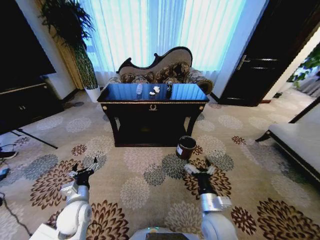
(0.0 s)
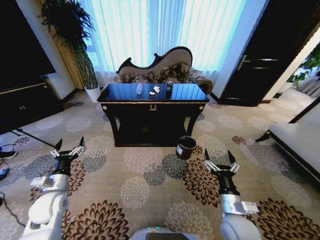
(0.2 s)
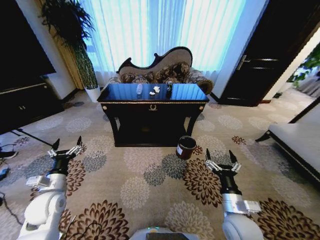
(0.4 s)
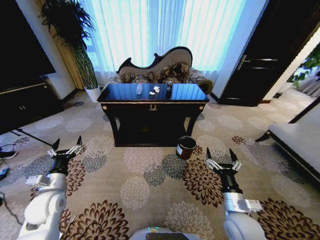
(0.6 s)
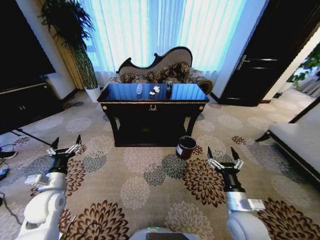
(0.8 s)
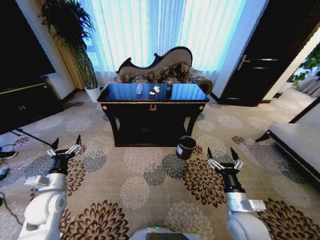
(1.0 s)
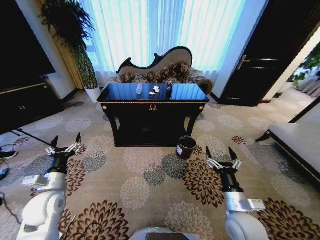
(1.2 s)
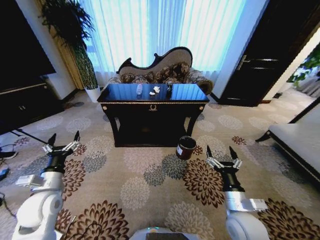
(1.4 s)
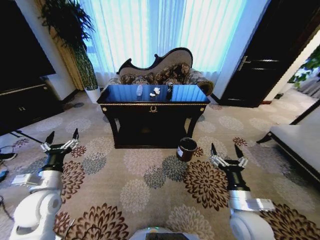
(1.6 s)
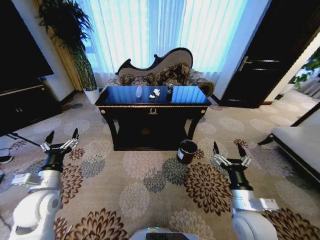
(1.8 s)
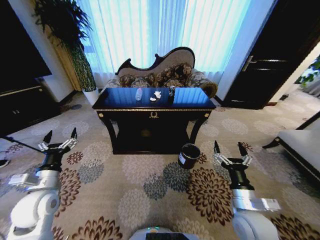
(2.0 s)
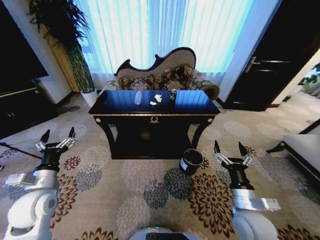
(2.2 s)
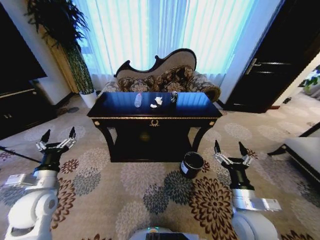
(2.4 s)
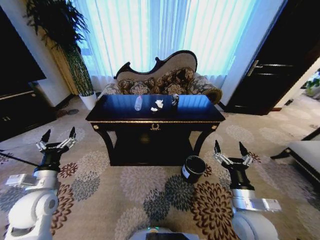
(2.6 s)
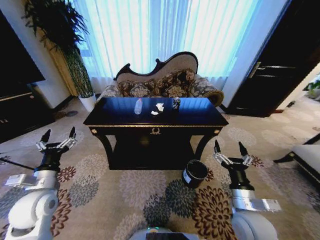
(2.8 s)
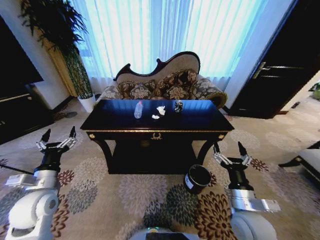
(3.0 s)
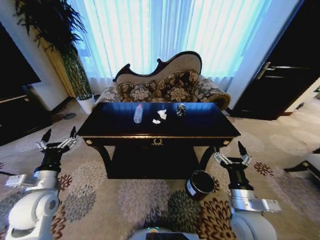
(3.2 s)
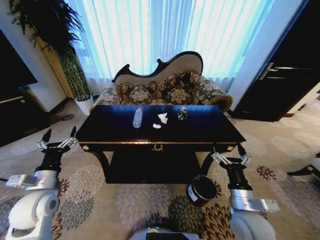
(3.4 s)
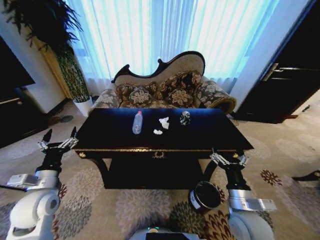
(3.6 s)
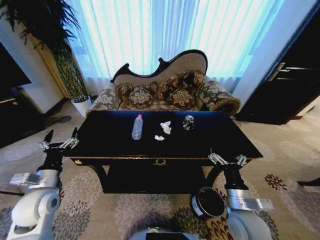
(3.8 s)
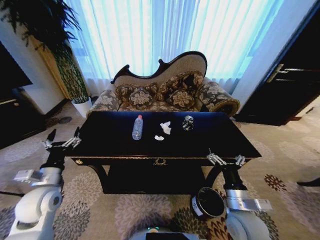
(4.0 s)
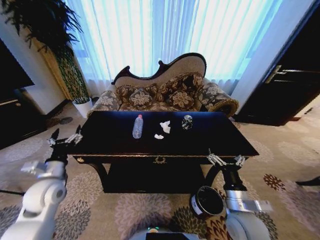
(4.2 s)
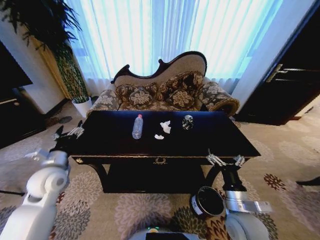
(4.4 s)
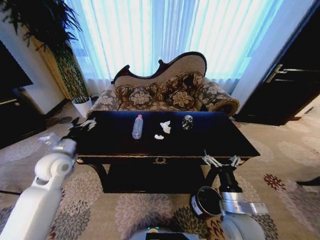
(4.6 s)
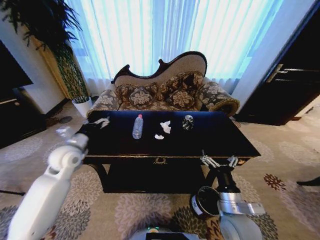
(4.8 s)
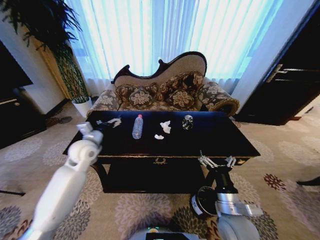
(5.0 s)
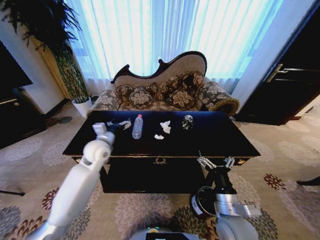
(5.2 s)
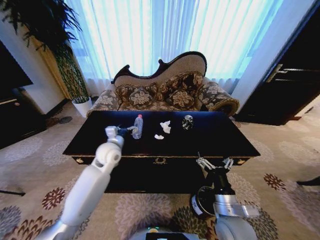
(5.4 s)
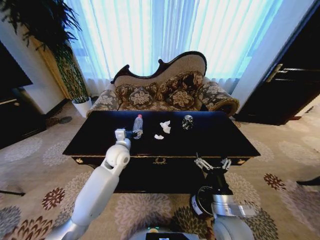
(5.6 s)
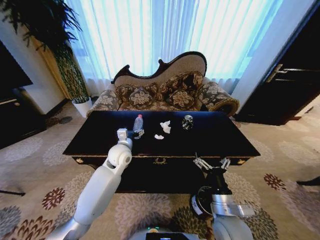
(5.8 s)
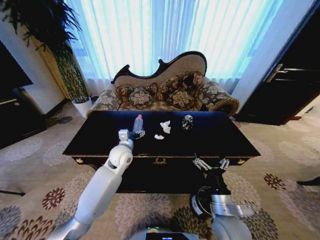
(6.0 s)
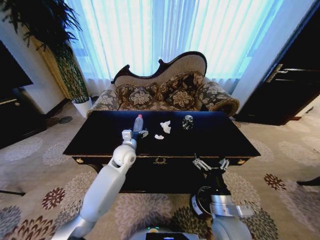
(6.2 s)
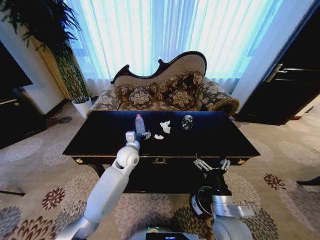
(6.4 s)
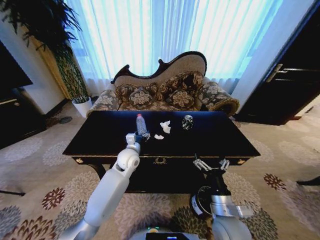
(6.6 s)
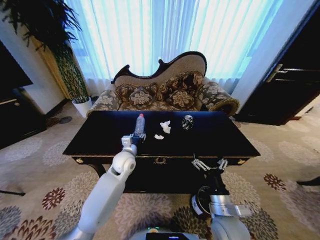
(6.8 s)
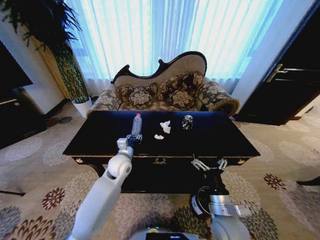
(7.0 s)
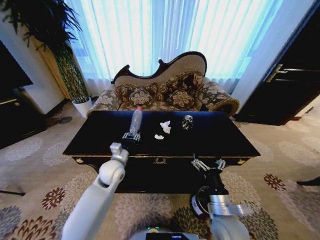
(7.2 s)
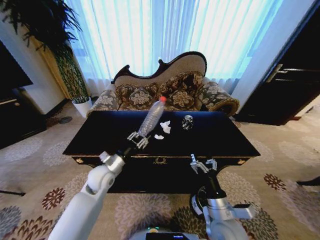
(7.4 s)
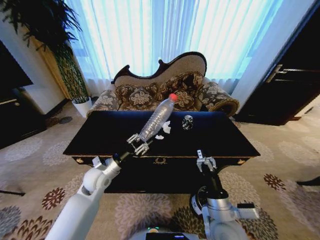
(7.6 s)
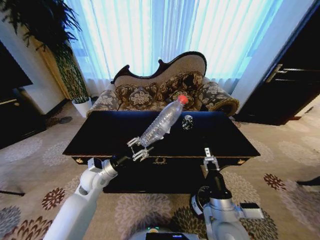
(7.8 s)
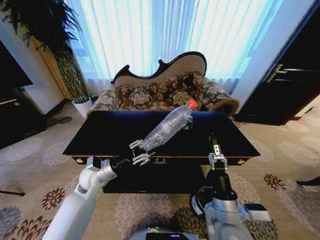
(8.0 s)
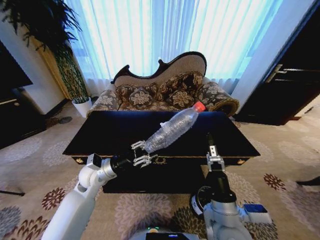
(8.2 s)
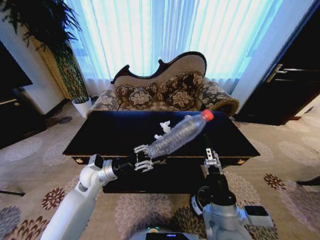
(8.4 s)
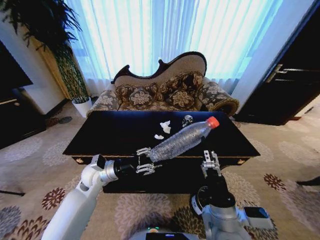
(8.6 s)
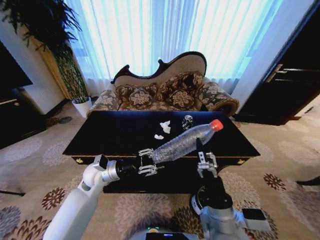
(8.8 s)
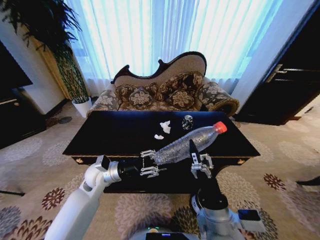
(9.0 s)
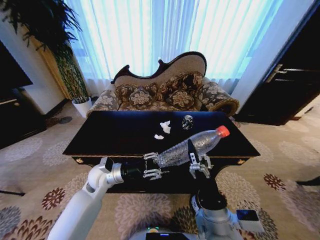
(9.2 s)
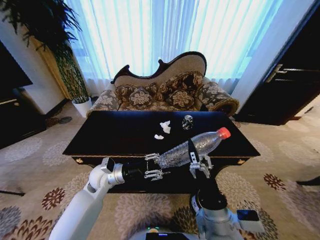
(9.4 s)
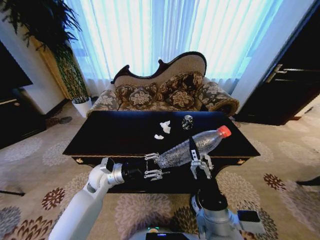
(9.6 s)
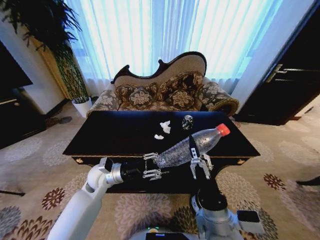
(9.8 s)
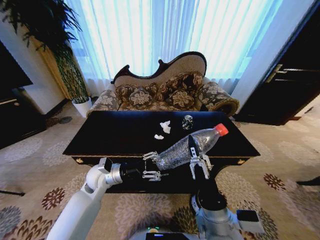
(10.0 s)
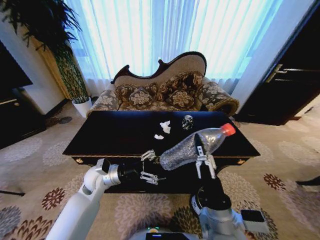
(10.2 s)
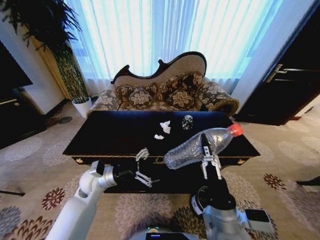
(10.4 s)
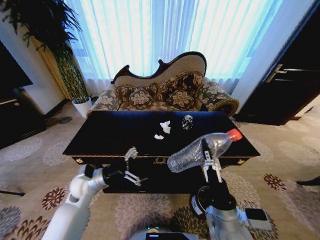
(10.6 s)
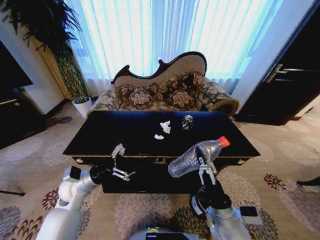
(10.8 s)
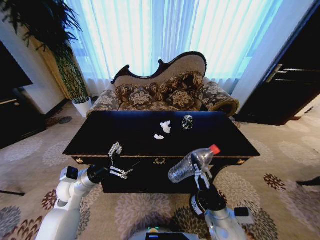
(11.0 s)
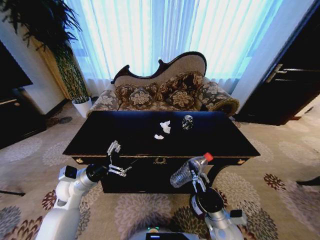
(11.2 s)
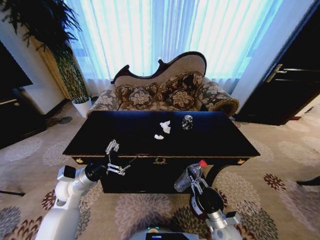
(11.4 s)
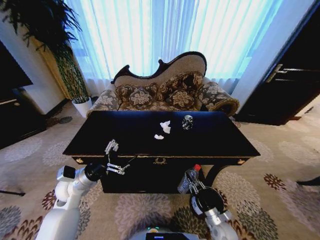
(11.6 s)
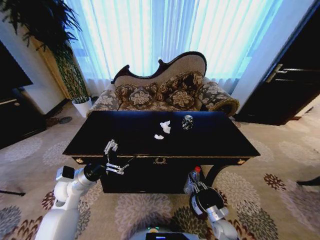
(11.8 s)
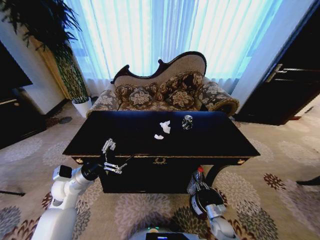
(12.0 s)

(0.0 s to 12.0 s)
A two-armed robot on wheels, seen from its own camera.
Task of the whole recording: Move to the front of the table and place the trash on the table into the trash bin.
3.0 s - 4.4 s: The left gripper goes approximately 5 cm forward.
4.4 s - 6.0 s: The left gripper shifts some 25 cm to the right and forward.
6.0 s - 7.6 s: The left gripper moves to the left and backward, roughly 10 cm, and closes up.
9.0 s - 10.4 s: The left gripper opens up. Meanwhile the right gripper closes its fingers.
10.4 s - 12.0 s: The left gripper moves to the left, approximately 10 cm; the right gripper travels downward and to the right by roughly 35 cm.

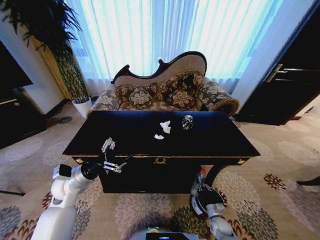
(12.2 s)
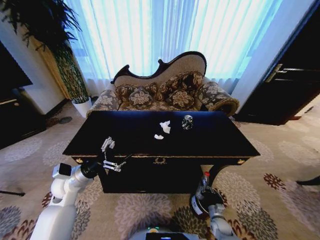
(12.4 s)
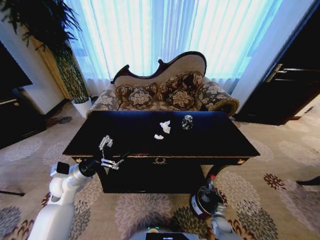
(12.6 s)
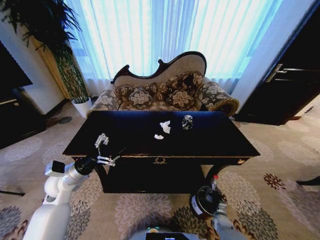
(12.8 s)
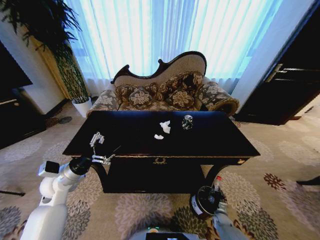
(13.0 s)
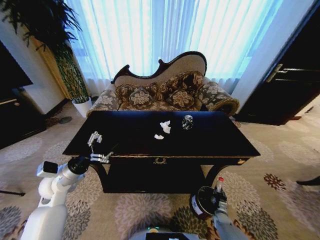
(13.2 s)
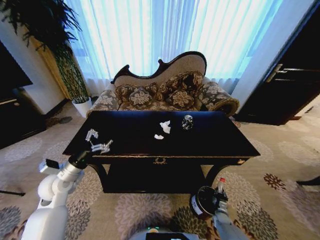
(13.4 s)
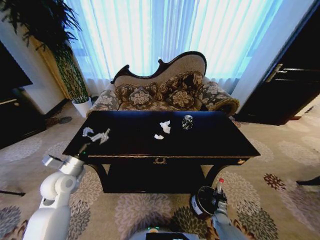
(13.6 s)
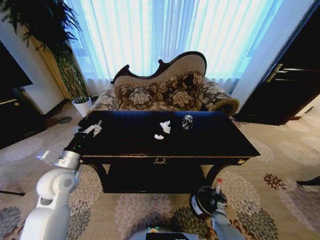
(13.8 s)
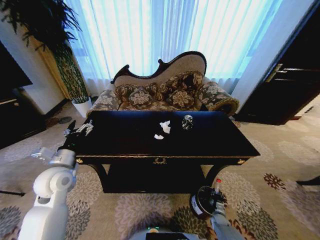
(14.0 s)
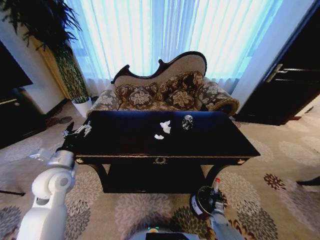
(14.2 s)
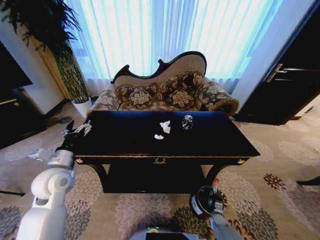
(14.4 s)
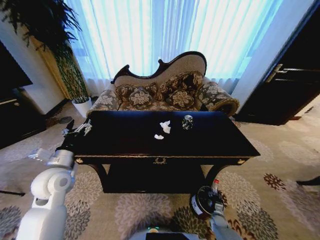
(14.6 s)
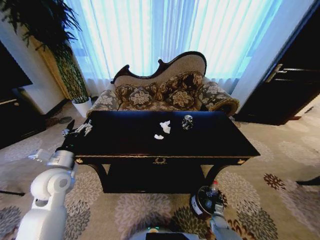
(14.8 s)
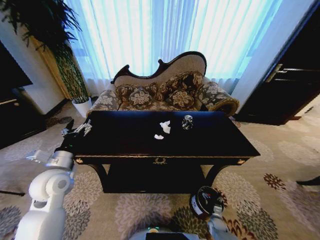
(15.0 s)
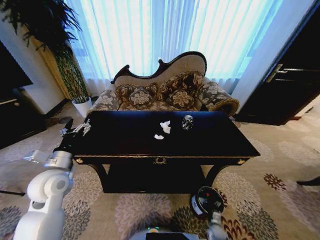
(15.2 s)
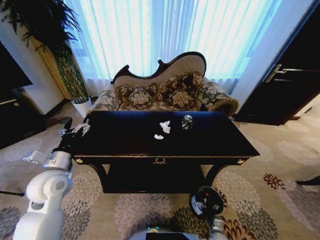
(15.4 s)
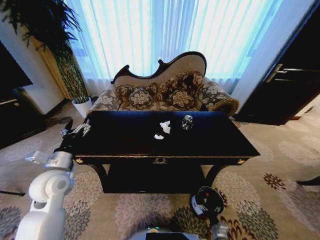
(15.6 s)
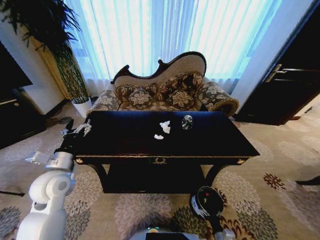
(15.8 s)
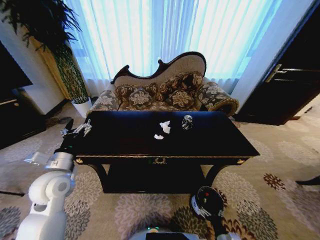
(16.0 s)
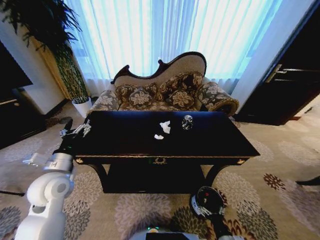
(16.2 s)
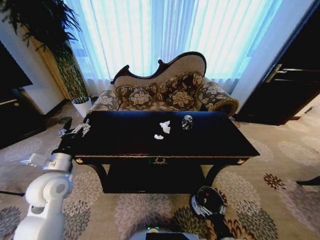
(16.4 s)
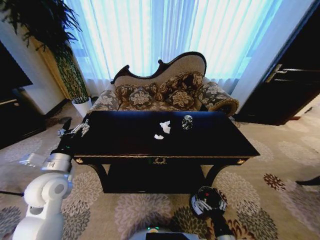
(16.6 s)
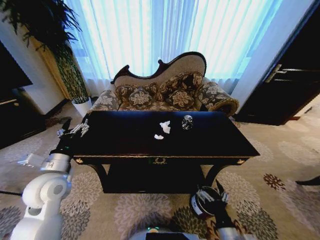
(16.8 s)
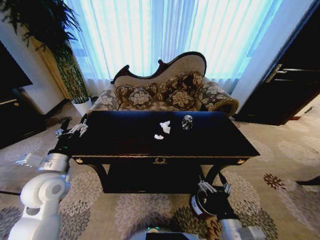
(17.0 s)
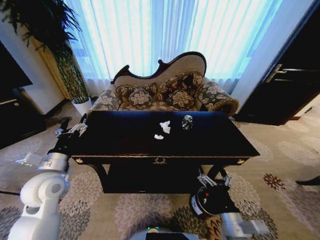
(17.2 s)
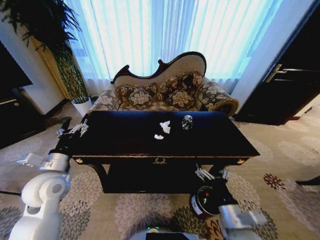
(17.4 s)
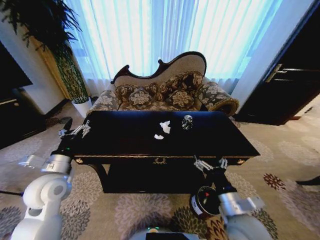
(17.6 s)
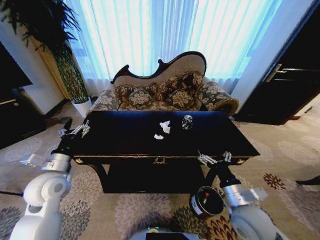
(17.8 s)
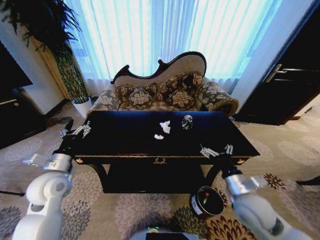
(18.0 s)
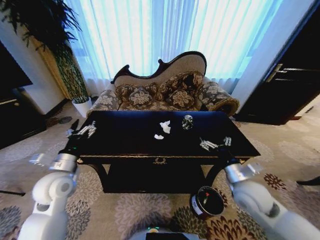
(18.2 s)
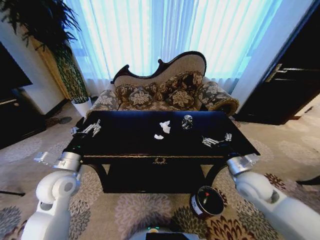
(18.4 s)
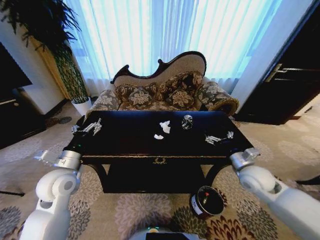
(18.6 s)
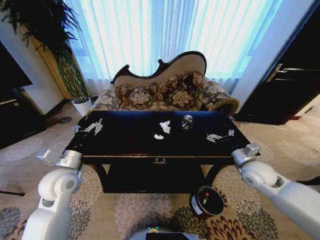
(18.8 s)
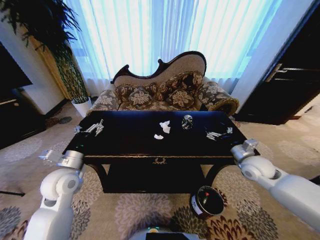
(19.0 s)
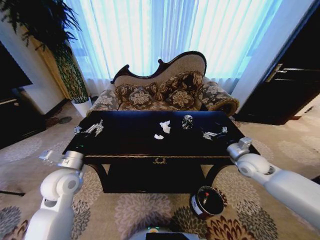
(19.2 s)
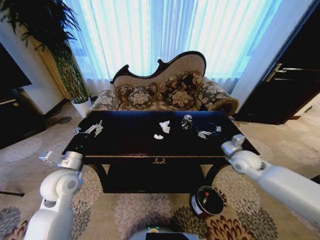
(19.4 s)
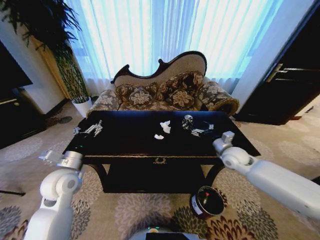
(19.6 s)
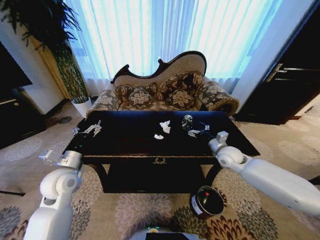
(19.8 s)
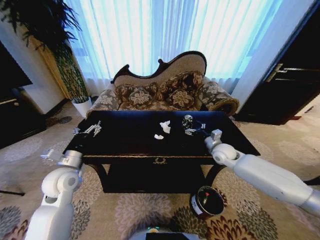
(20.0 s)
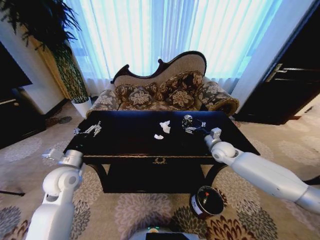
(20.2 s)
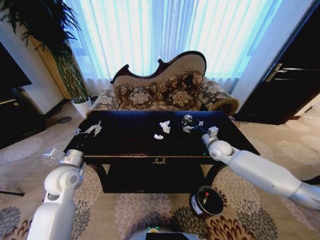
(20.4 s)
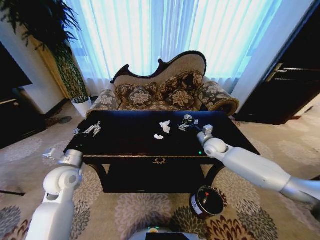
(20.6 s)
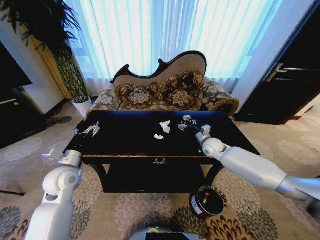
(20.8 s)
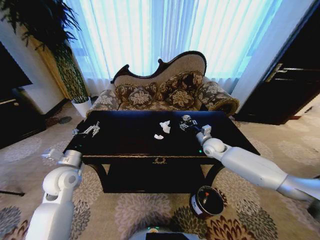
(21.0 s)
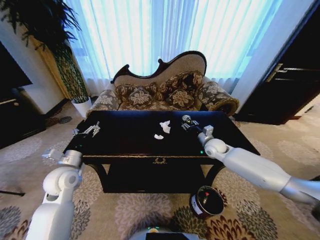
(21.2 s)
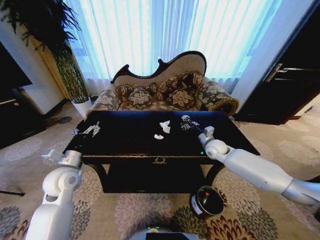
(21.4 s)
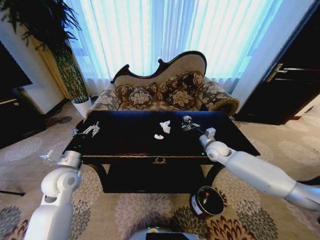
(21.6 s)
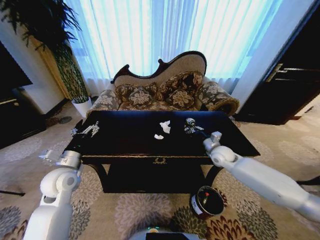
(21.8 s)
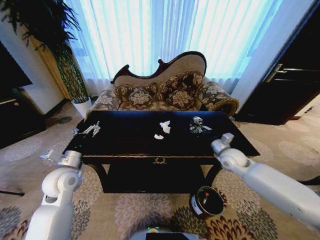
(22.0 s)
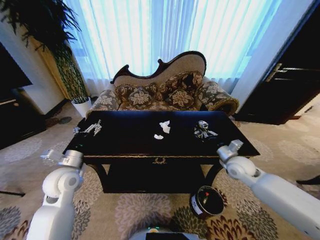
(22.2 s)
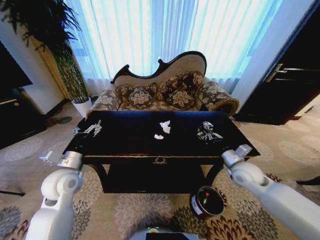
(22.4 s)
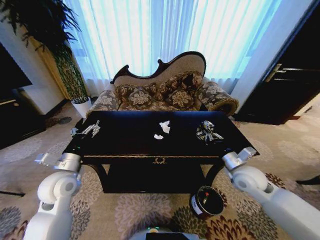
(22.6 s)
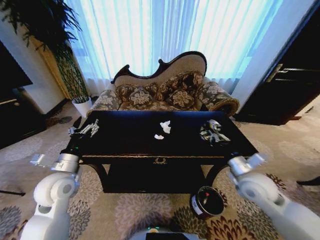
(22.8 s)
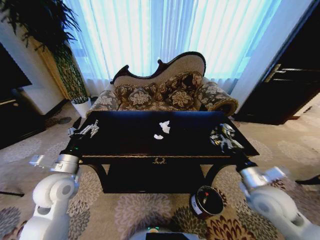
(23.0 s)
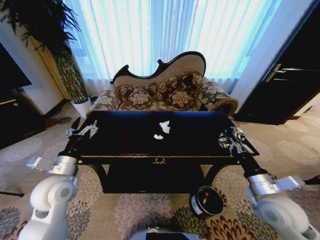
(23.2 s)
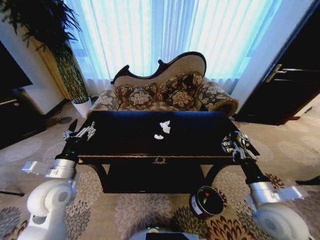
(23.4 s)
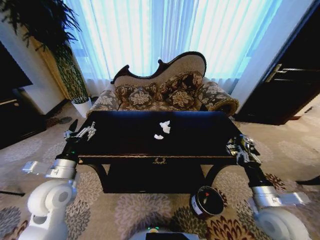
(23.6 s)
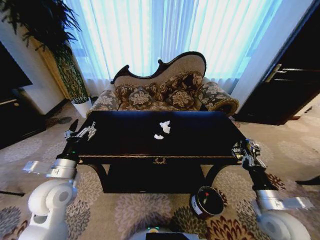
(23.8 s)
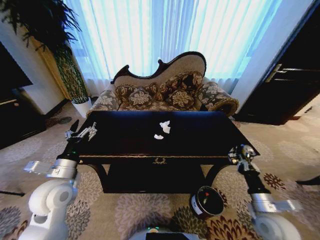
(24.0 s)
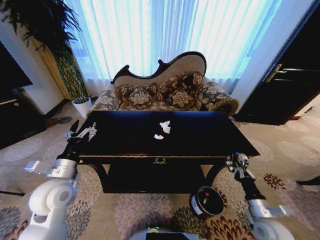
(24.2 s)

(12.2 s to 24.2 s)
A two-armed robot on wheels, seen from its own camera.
Task of the whole recording: Move to the front of the table and place the trash on the table into the trash bin.
12.2 s - 13.8 s: The right gripper goes approximately 5 cm downward. Meanwhile the left gripper changes place by approximately 5 cm.
13.8 s - 15.2 s: The right gripper shifts by some 5 cm, and opens its fingers.
15.2 s - 16.6 s: The right gripper travels upward and backward by roughly 30 cm.
16.6 s - 18.2 s: The right gripper goes some 25 cm forward and upward.
18.2 s - 19.8 s: The right gripper heads forward, covering some 20 cm.
19.8 s - 21.2 s: The right gripper shifts some 5 cm forward, and closes.
21.2 s - 22.6 s: The right gripper is displaced backward by approximately 20 cm, and closes its fingers.
22.6 s - 24.2 s: The right gripper moves backward, downward and to the right, some 20 cm.
